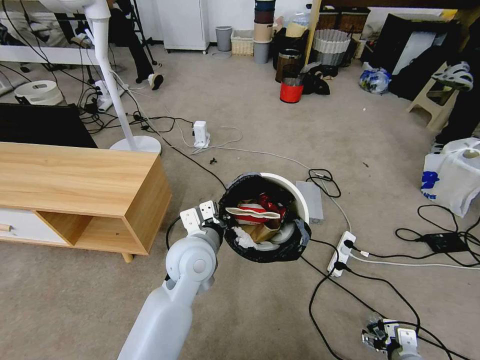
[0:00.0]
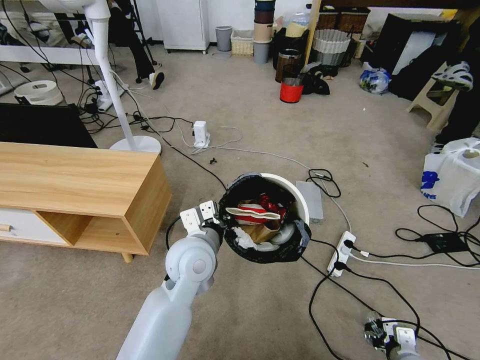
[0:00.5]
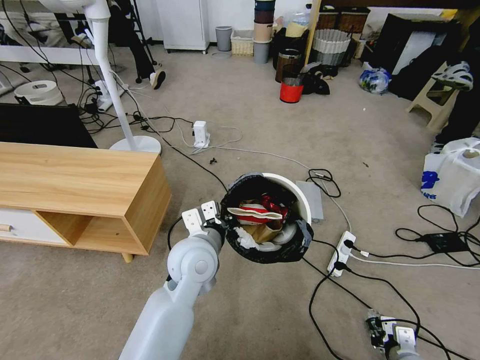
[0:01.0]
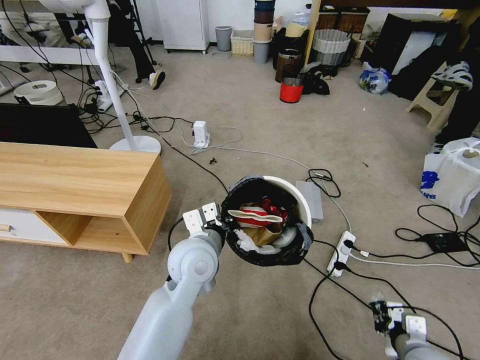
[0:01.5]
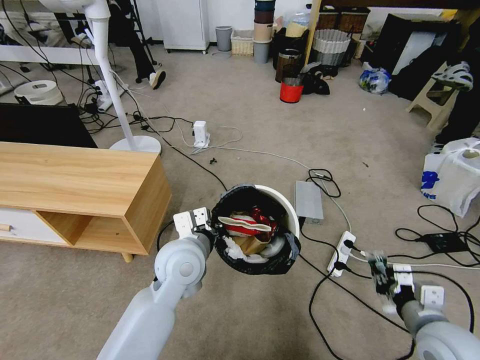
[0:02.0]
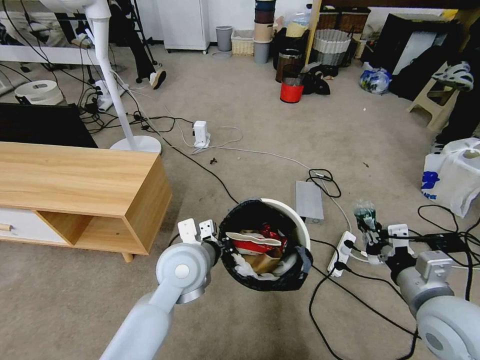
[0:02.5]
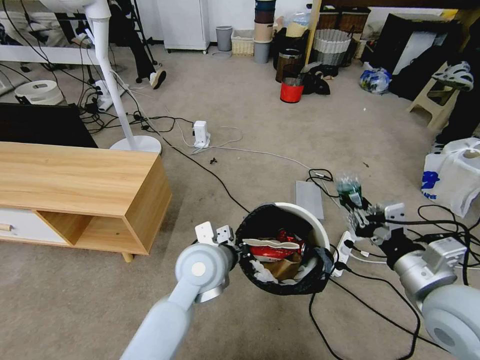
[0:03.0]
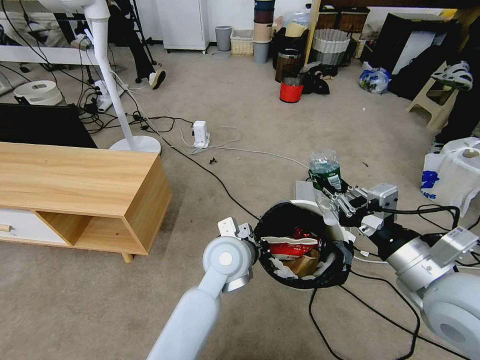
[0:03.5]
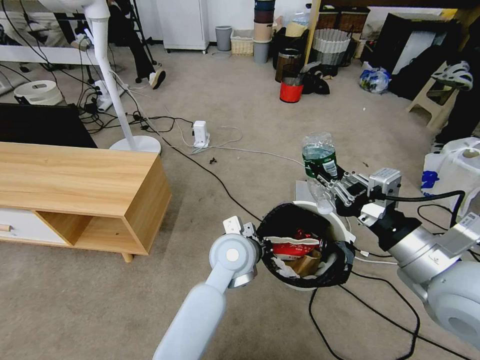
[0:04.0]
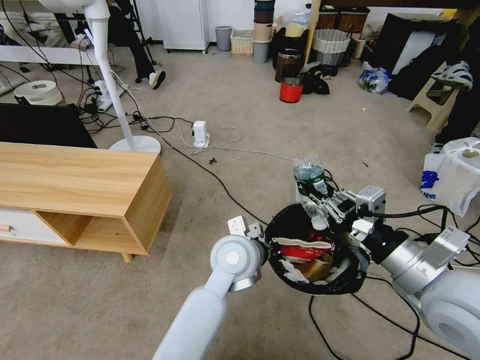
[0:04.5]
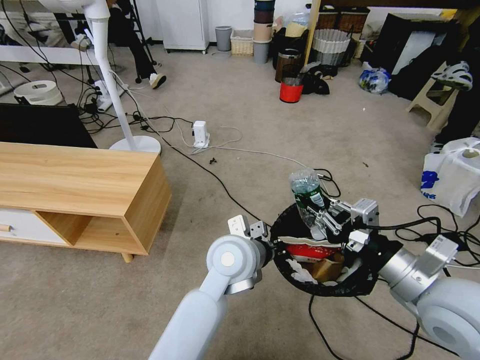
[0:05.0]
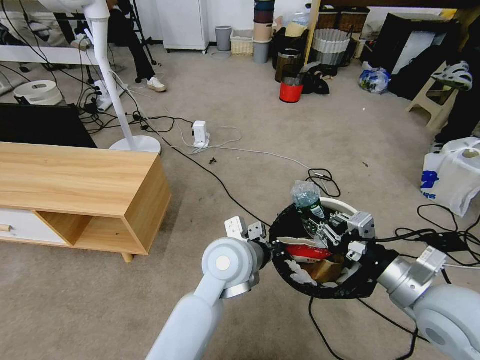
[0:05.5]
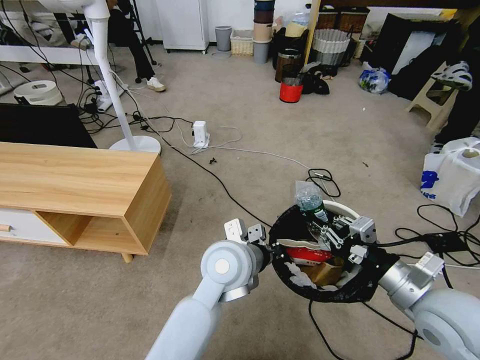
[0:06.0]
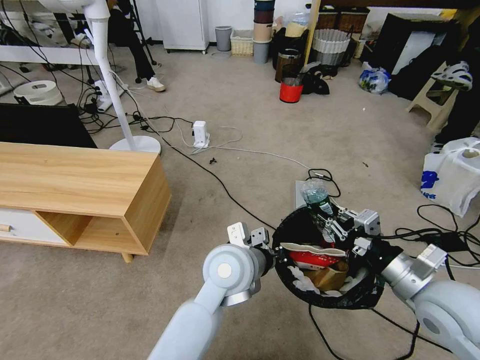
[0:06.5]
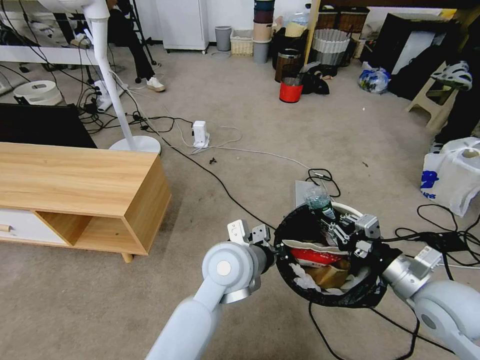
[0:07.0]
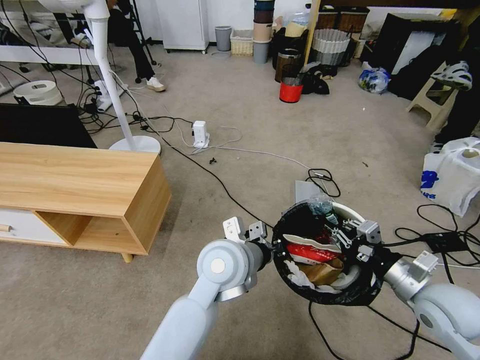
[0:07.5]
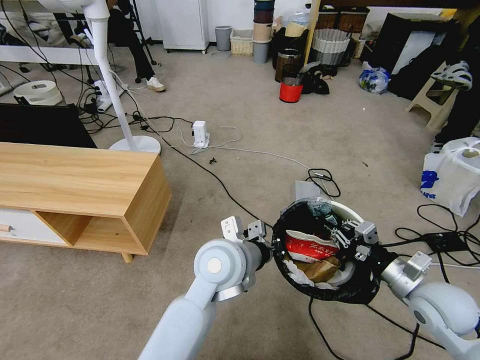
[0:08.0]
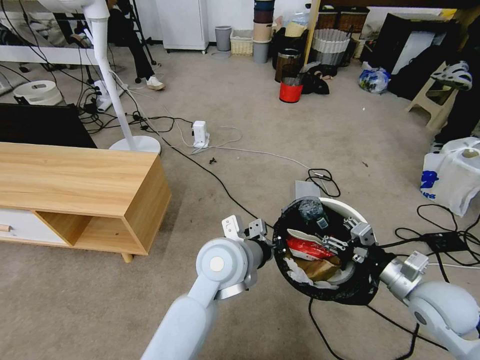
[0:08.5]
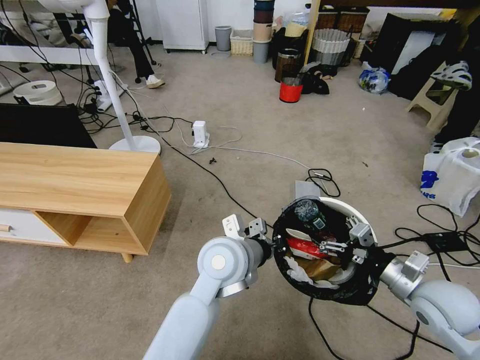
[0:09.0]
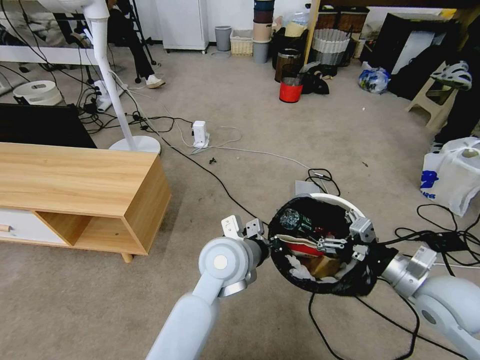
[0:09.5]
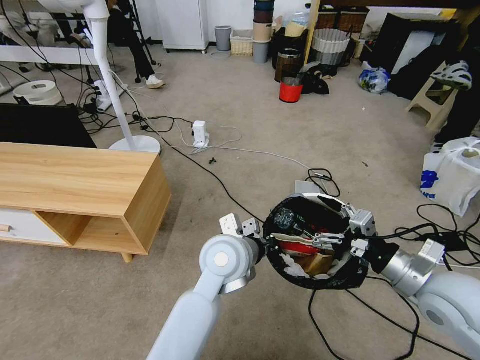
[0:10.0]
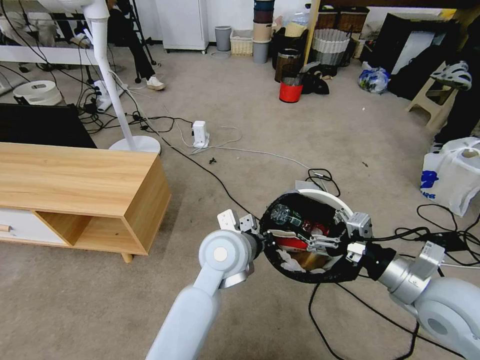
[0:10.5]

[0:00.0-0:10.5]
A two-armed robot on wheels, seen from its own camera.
Task of the whole recording: Pick up the trash bin and place the garbage on the floor into it.
0:00.0 to 0:02.0: The right gripper goes roughly 15 cm upward, and closes.
0:02.0 to 0:04.0: The left gripper shifts some 10 cm to the right. Meanwhile the right gripper goes about 20 cm upward.
0:04.0 to 0:06.5: The right gripper heads downward, covering roughly 10 cm.
0:06.5 to 0:08.5: The right gripper heads downward, covering some 5 cm, and opens up.
0:08.5 to 0:10.5: The right gripper moves upward, about 5 cm.

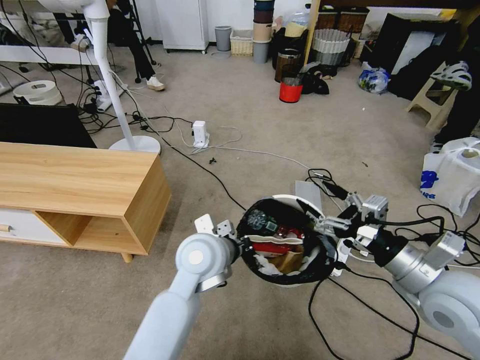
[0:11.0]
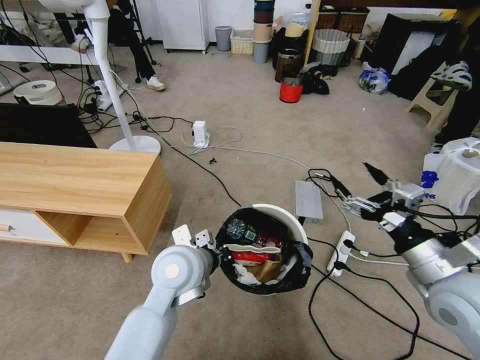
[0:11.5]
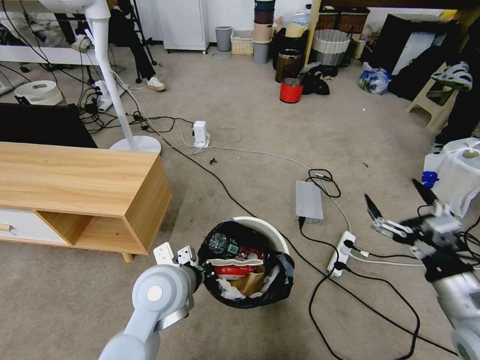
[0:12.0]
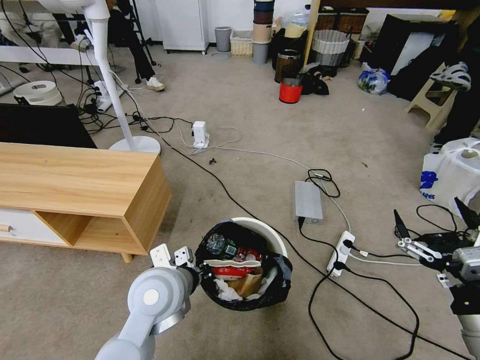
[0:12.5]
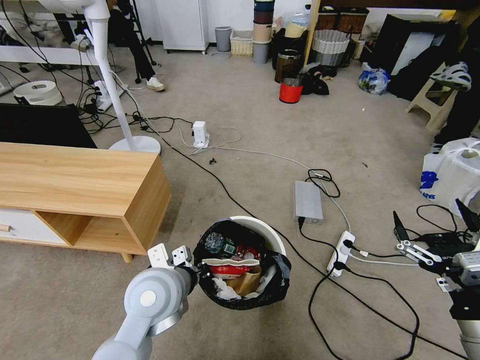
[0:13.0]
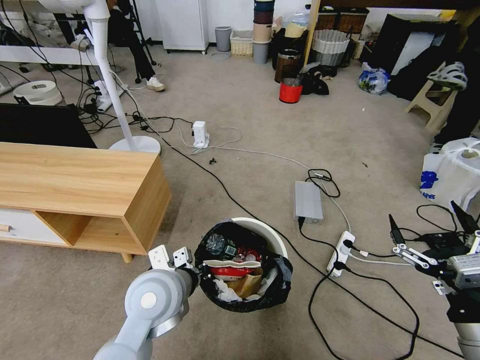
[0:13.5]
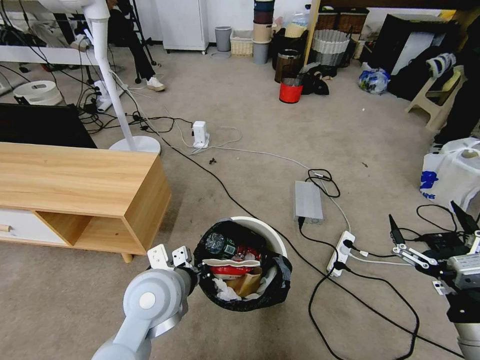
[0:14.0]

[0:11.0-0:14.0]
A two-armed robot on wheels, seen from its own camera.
Task of the whole recording: Pick up the trash bin and place the garbage on the floor into it.
0:11.0 to 0:12.5: The right gripper shifts roughly 10 cm backward; the left gripper is displaced to the left and backward by roughly 10 cm.
0:12.5 to 0:14.0: Neither gripper changes place.
